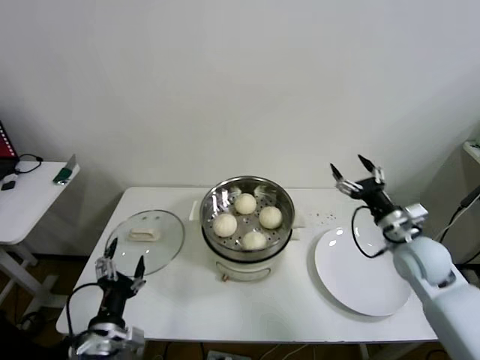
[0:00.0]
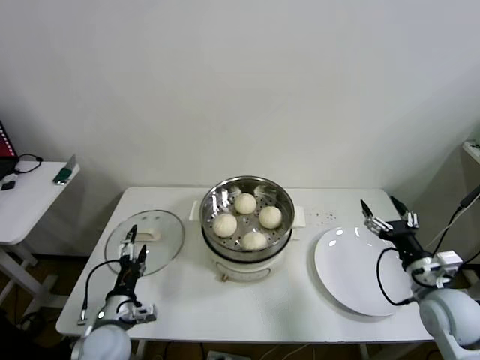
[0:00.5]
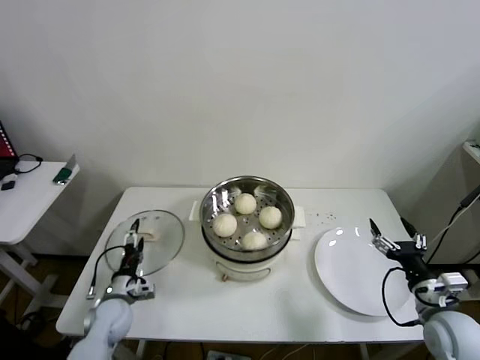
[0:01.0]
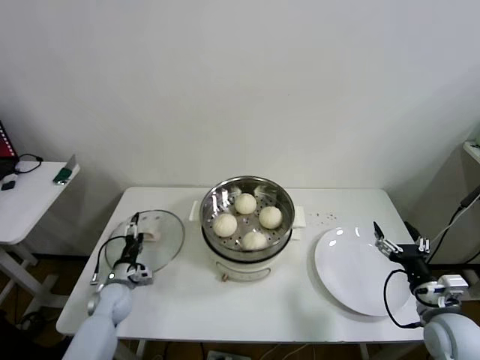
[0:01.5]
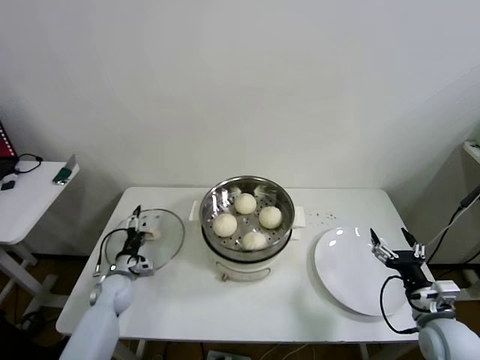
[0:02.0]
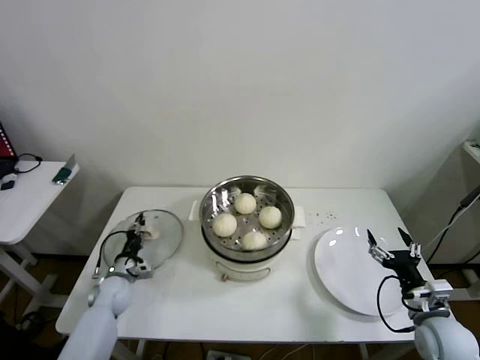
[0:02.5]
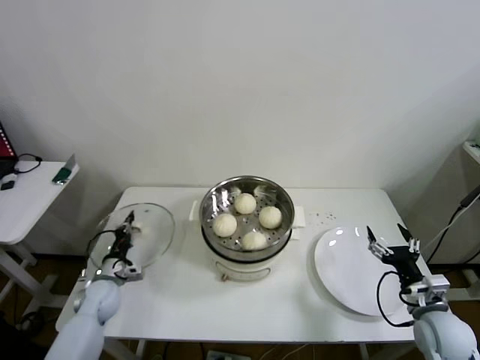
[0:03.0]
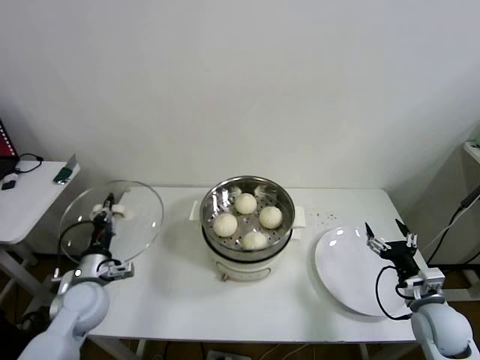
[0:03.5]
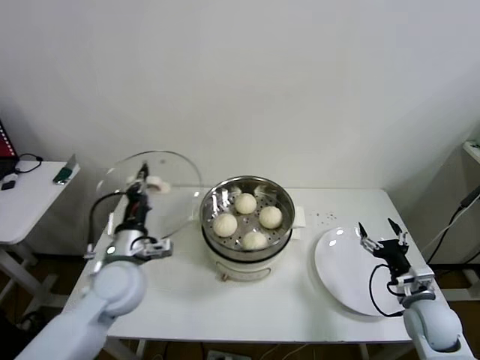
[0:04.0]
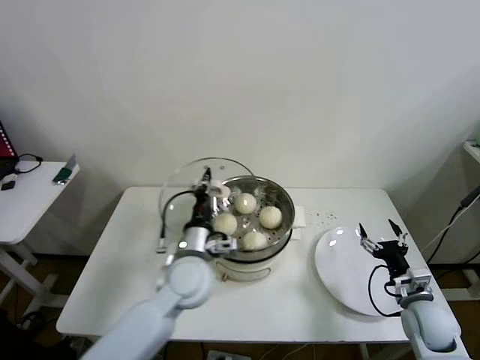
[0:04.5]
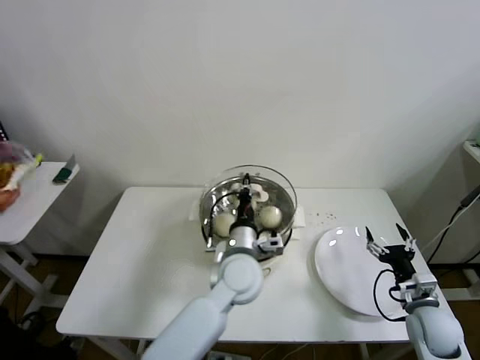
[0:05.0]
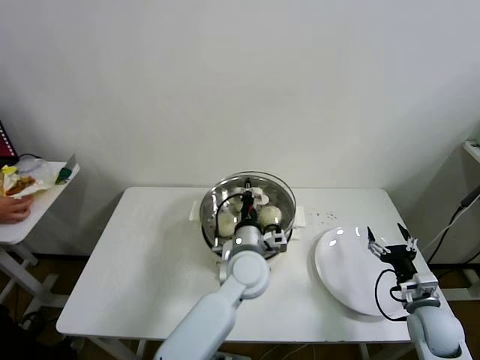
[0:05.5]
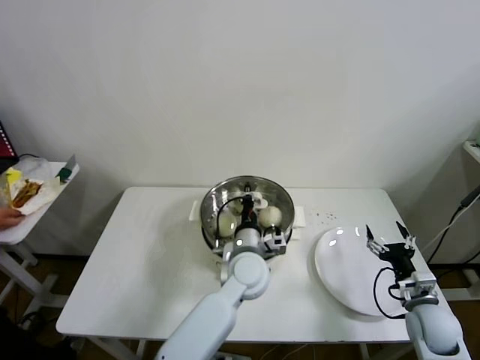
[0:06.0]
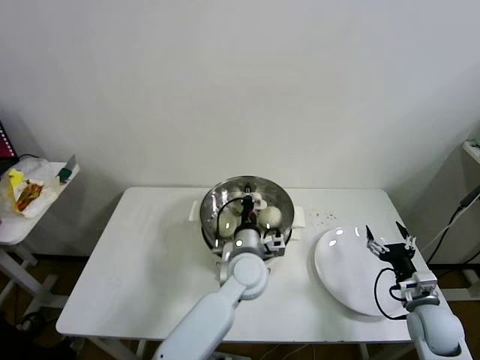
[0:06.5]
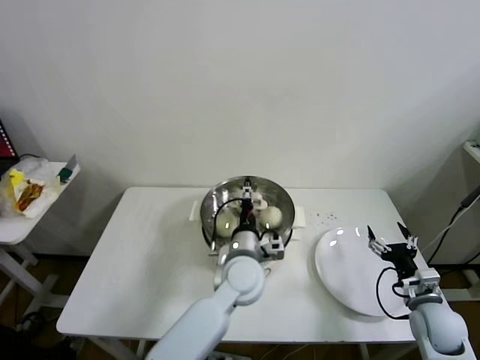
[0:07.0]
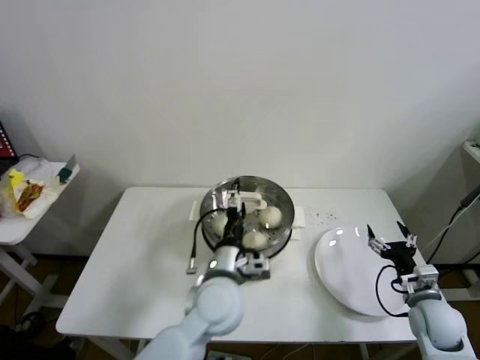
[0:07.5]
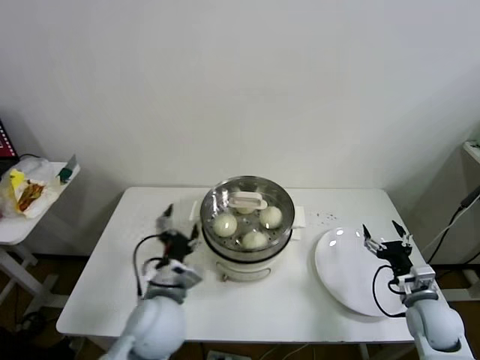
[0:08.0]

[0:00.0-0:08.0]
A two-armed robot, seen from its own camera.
Step, 0:00.0 to 0:02.5: Grasp the pot lid with left gripper.
Step, 0:03.0 to 0:06.5: Place the pot lid on the steamer with left gripper.
0:00.0 to 0:02.0: The left gripper goes approximately 30 cm forward, downward and to the left; the right gripper goes some 15 cm backward and downward.
0:02.0 to 0:04.0: The right gripper moves about 5 cm; the left gripper goes approximately 25 cm upward and to the right, and closes its fingers.
0:04.0 to 0:06.0: The left gripper goes about 25 cm to the right.
0:06.0 to 0:08.0: The left gripper travels to the left and backward by roughly 20 cm, and opens.
